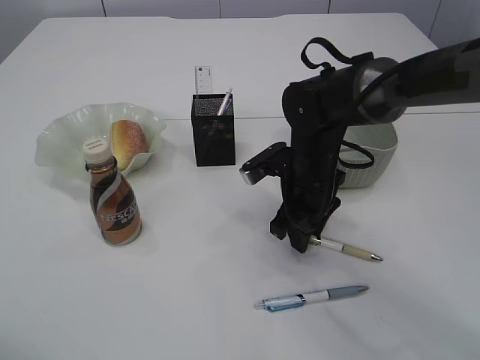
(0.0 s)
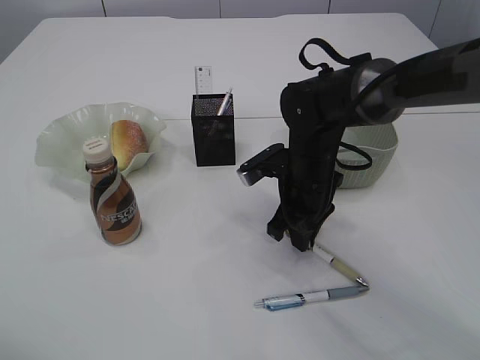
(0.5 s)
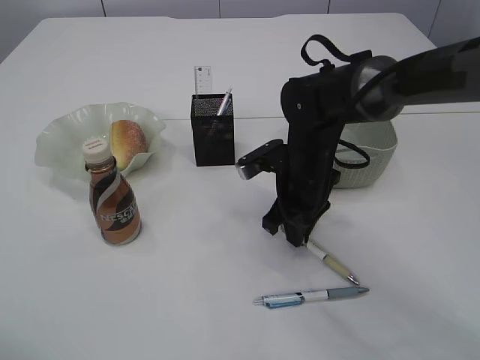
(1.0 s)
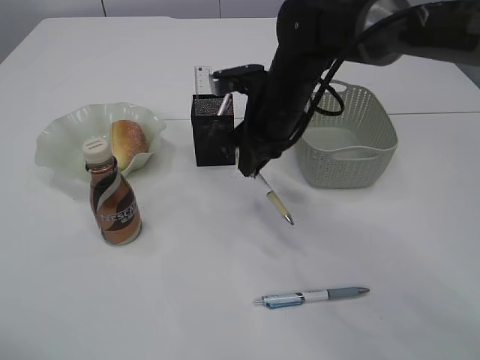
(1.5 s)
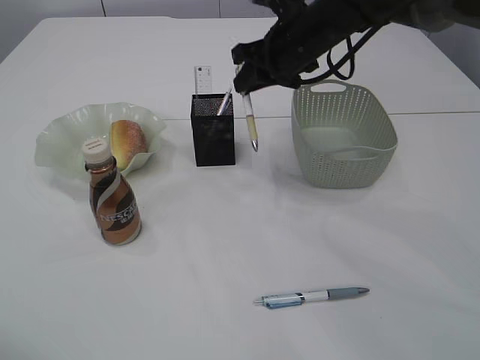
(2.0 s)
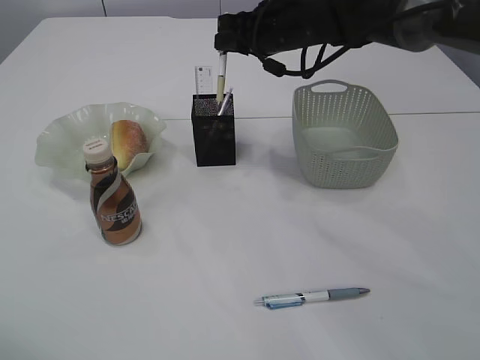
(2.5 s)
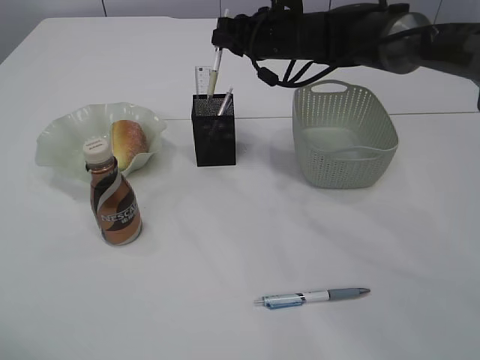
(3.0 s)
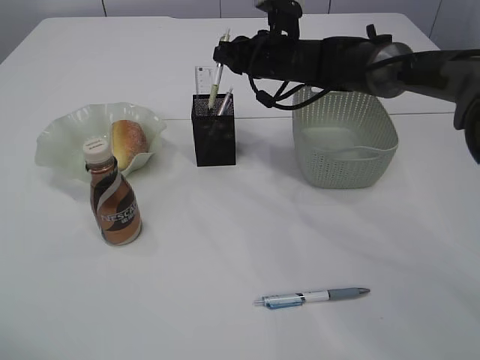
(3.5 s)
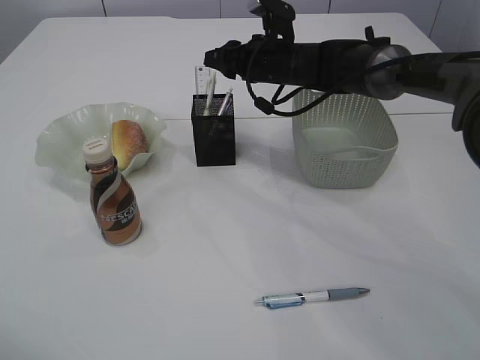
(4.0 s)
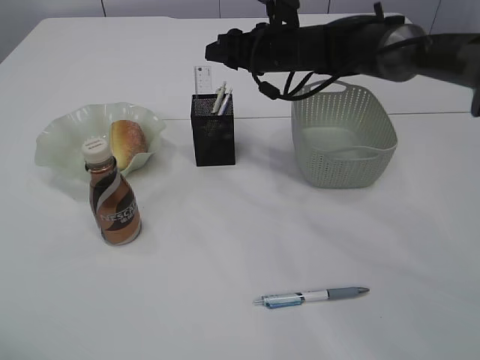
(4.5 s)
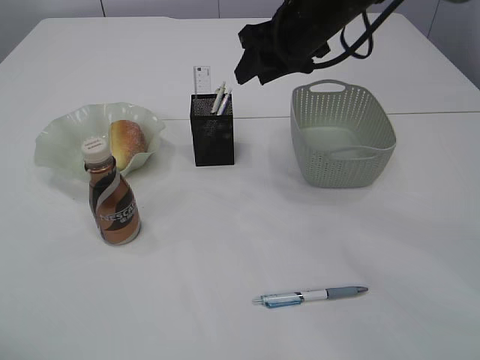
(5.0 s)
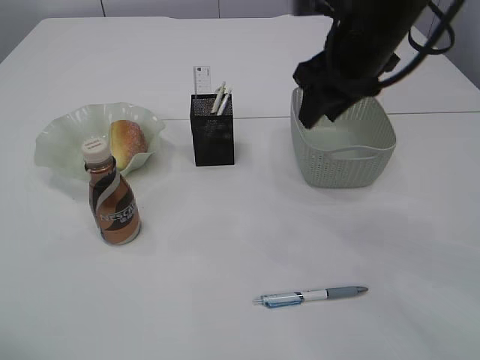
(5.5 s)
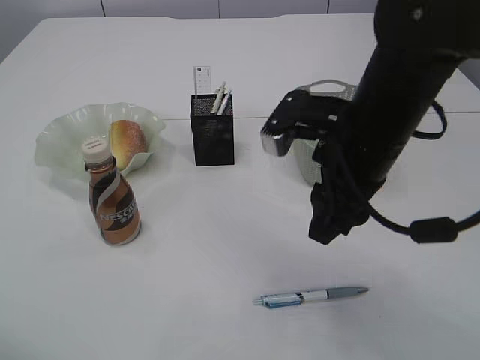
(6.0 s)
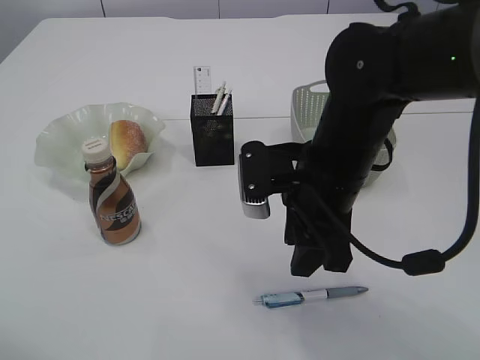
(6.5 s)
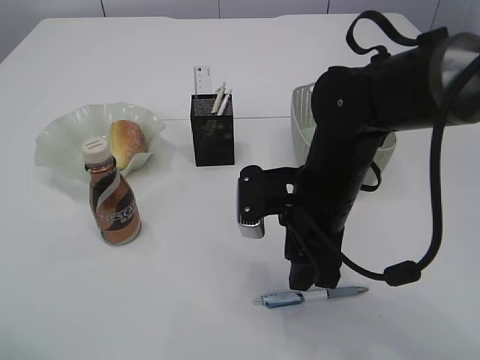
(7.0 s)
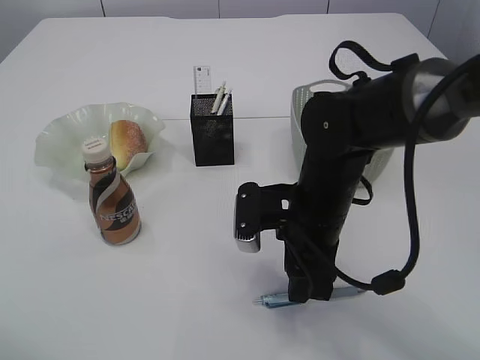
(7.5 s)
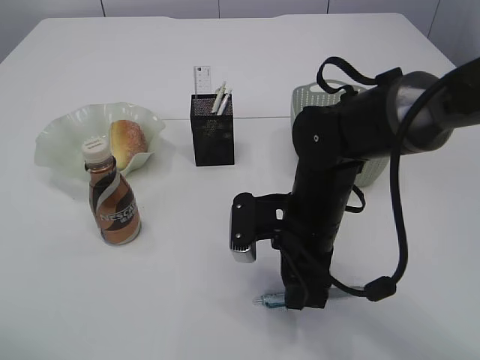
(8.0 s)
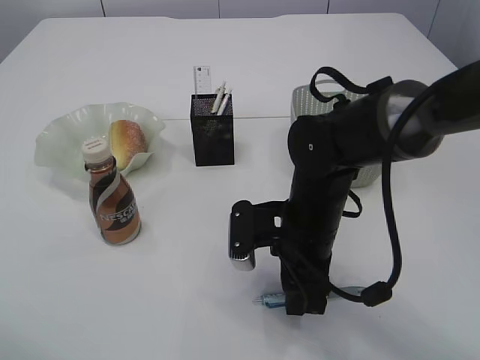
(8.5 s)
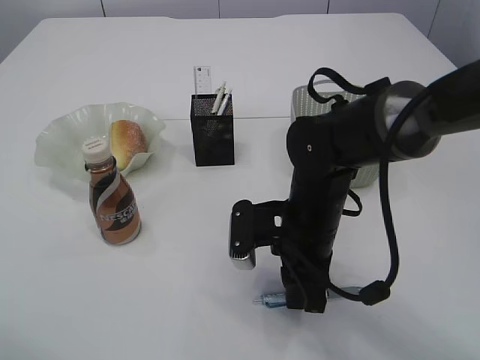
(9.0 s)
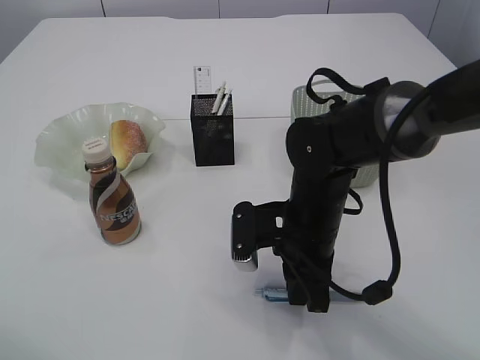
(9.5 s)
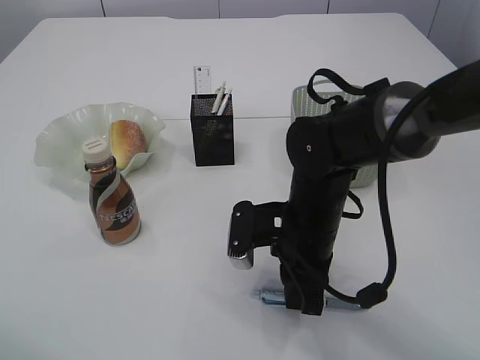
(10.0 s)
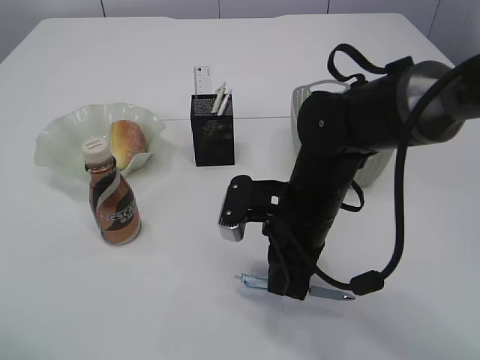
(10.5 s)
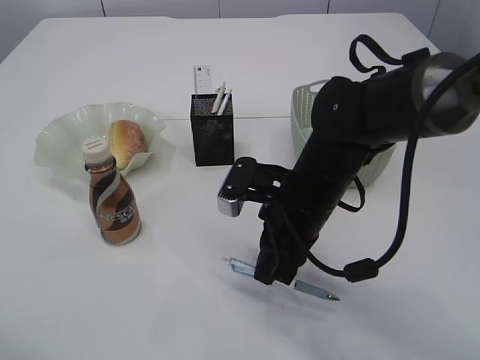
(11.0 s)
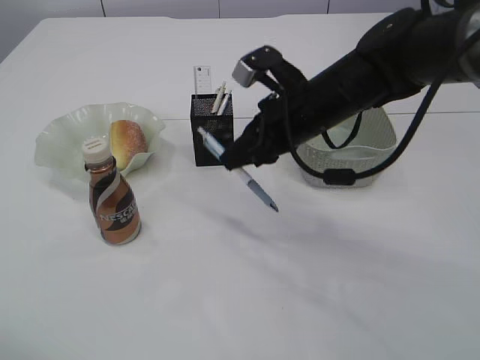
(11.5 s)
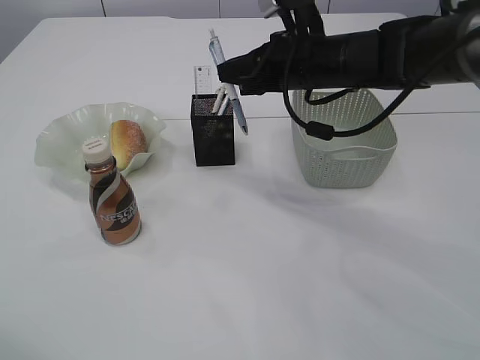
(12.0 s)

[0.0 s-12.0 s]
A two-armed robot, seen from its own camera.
Step, 1.5 to 4.0 s: Place the pen into the pen holder.
Step, 4.5 to 11.0 s: Pick up the pen with right arm.
0.0 to 2.0 s: The right gripper moves upward and forward, about 15 cm, and closes.
2.0 to 4.0 s: The right gripper goes some 10 cm downward and forward.
4.0 to 6.0 s: The right gripper goes approximately 25 cm backward.
6.0 to 8.0 s: The right gripper travels downward by approximately 10 cm.
8.0 to 10.0 s: The right gripper closes.
10.0 to 12.0 s: The right gripper is displaced forward and upward by roughly 20 cm.

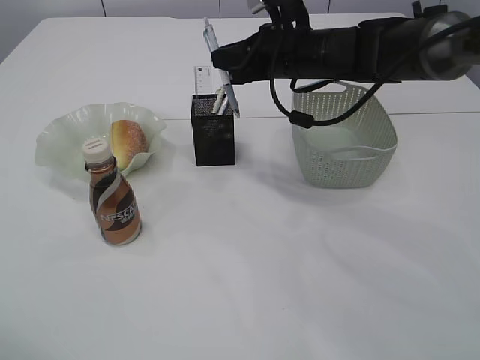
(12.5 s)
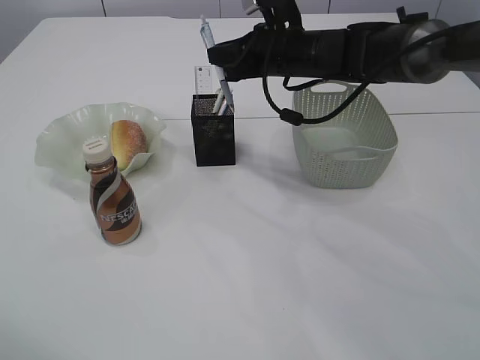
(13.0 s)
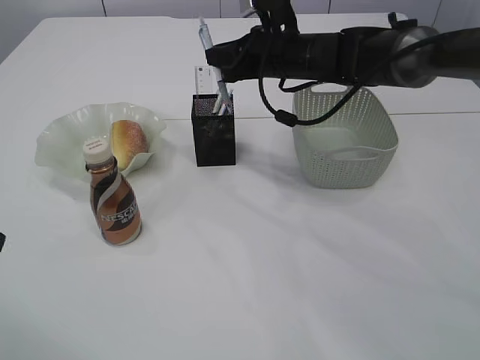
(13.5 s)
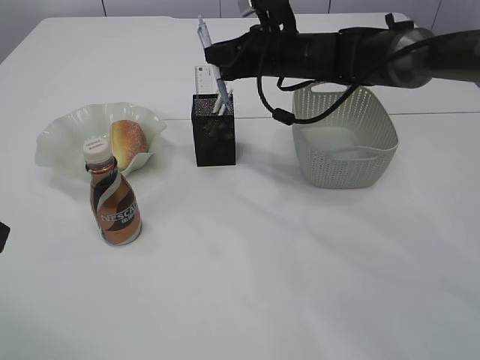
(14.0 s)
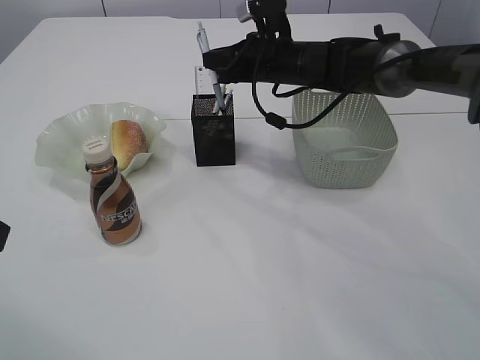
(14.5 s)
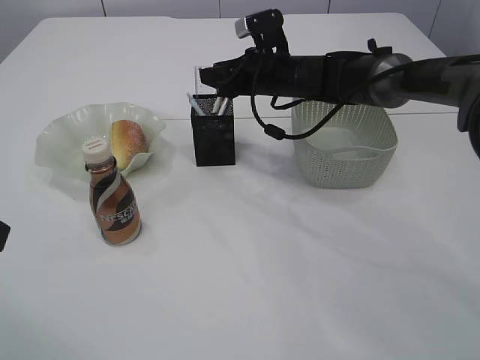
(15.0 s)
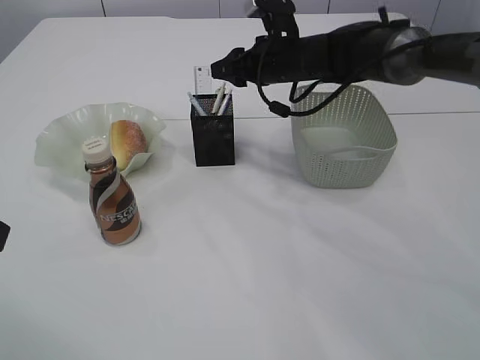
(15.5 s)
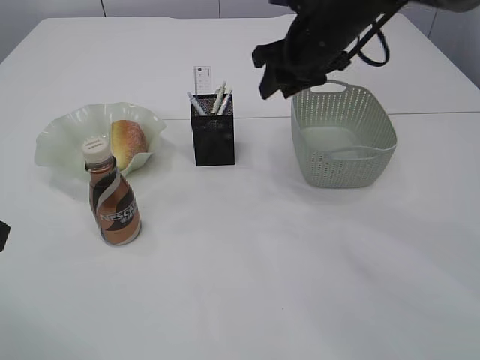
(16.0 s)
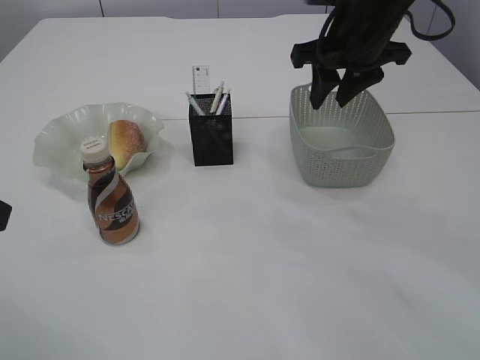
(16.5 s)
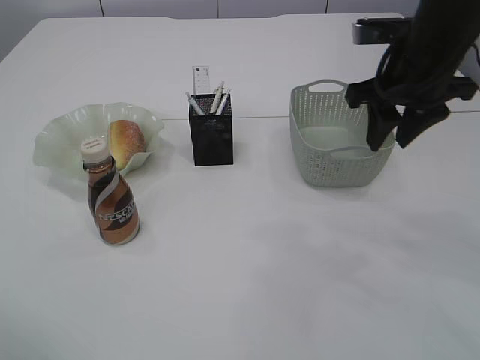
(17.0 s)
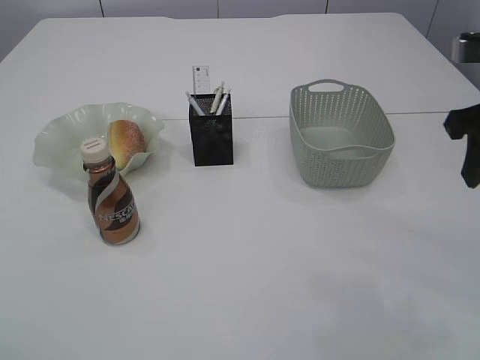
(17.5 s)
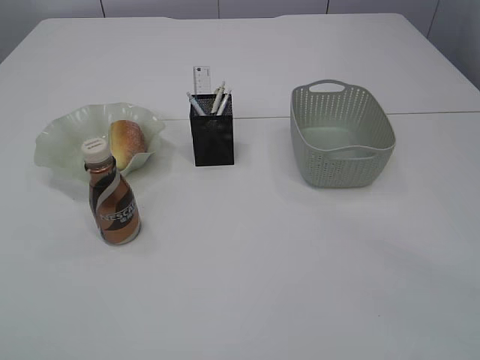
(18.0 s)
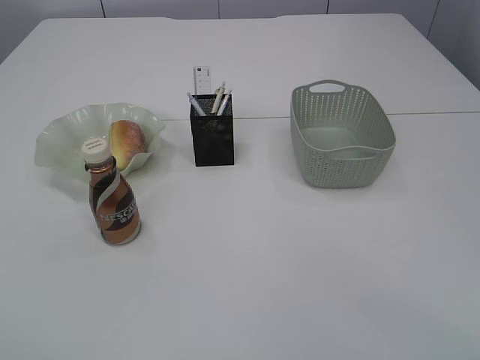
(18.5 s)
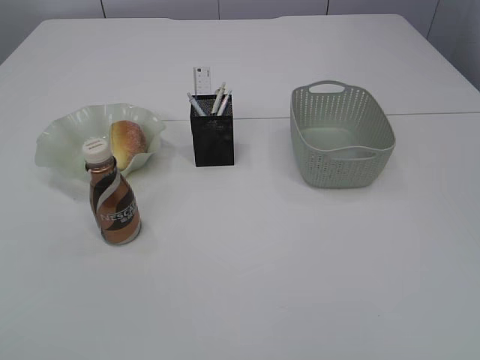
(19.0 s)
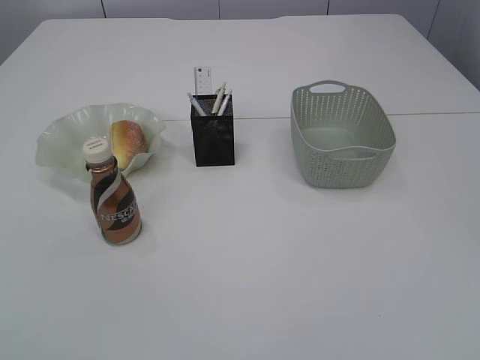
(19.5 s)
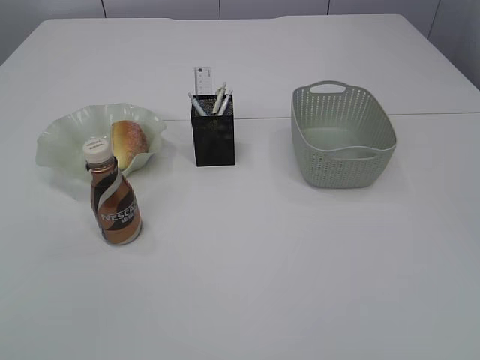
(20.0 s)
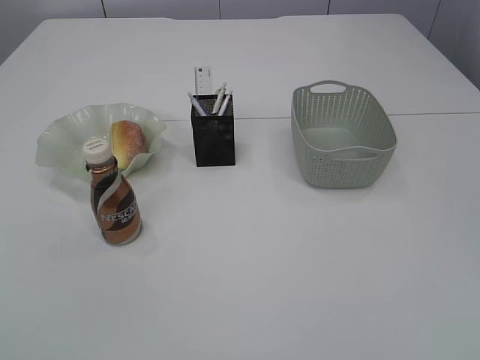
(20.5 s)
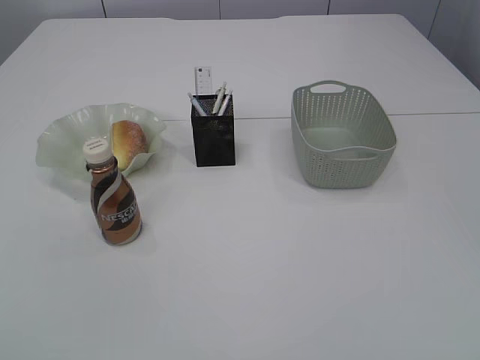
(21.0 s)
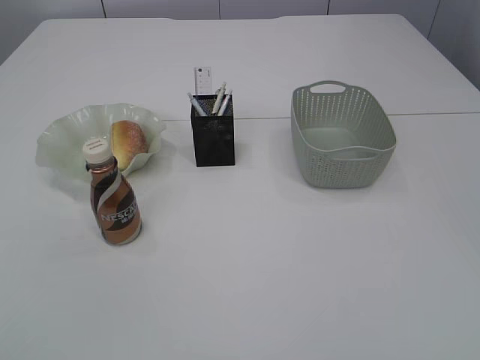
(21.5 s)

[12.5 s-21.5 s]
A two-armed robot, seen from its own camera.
Step, 12.5 to 15.5 s: Place the pen into the pen holder.
12.5 to 14.5 s: The right gripper moves some 5 cm.
14.5 to 17.0 s: The right gripper moves backward, to the right and upward, roughly 20 cm, and opens its fingers.
17.0 to 19.5 s: The right gripper is displaced backward by some 40 cm; the left gripper goes about 20 cm backward.

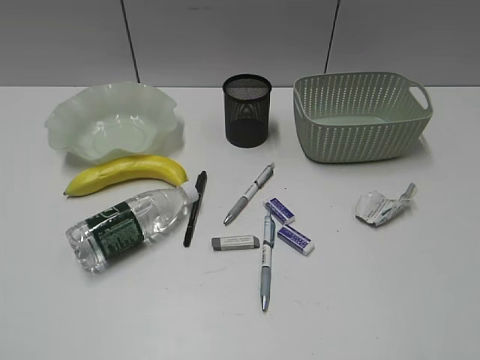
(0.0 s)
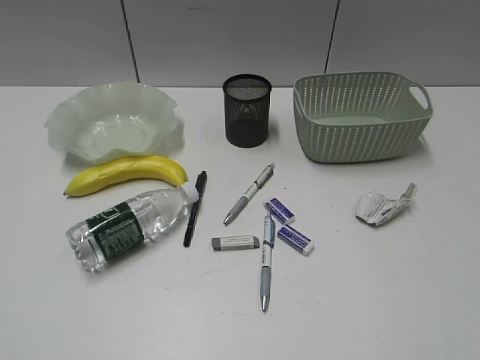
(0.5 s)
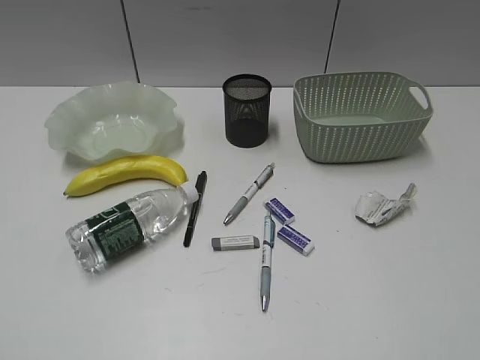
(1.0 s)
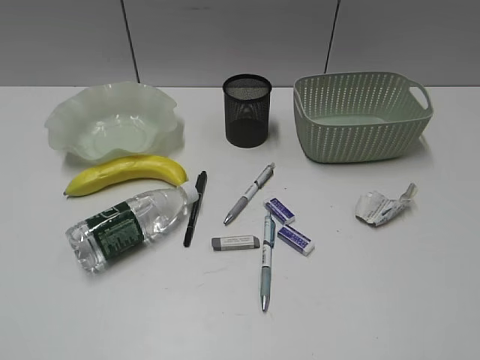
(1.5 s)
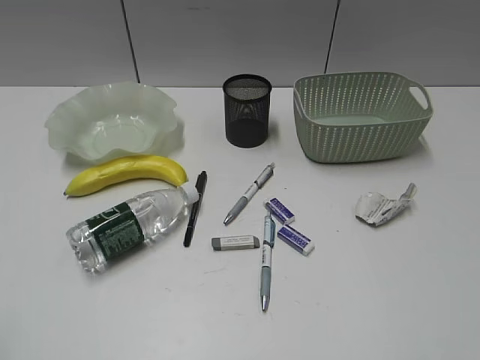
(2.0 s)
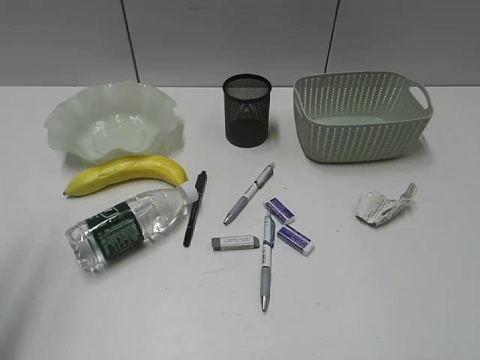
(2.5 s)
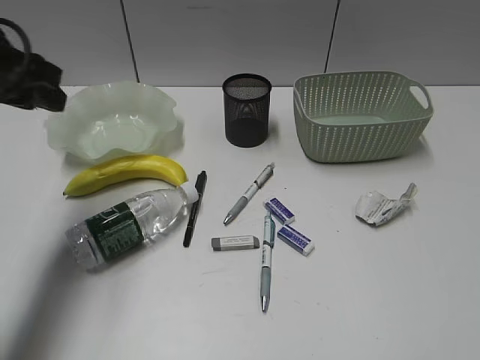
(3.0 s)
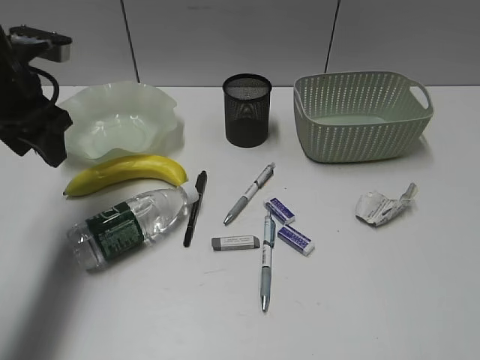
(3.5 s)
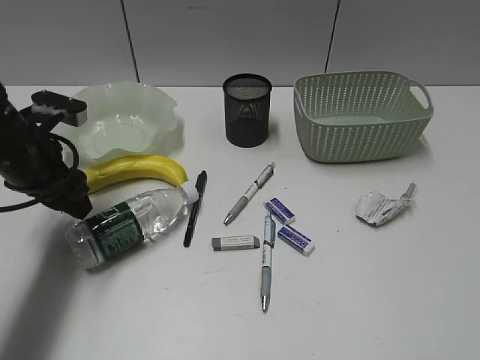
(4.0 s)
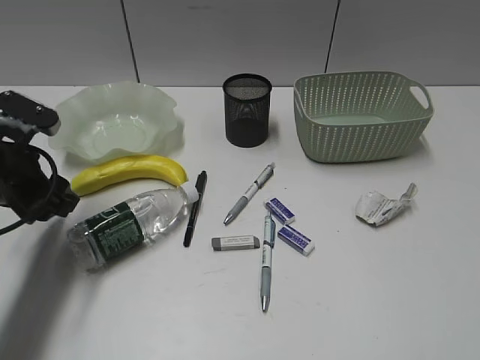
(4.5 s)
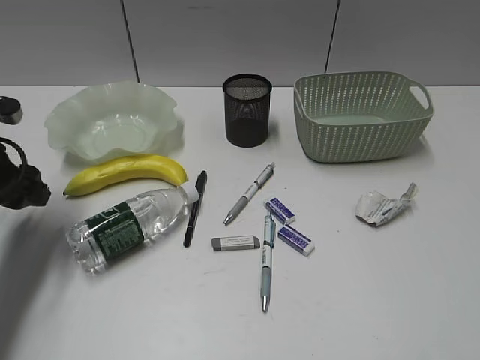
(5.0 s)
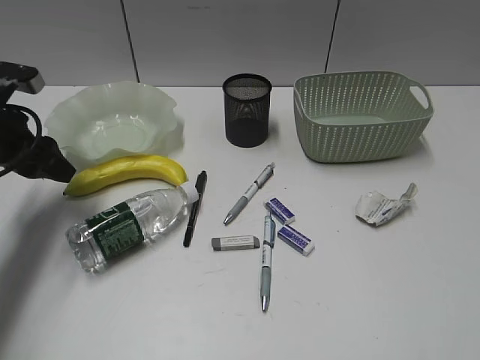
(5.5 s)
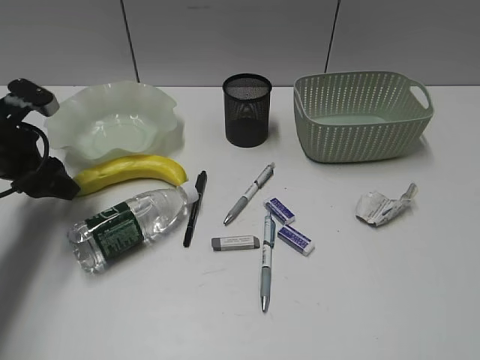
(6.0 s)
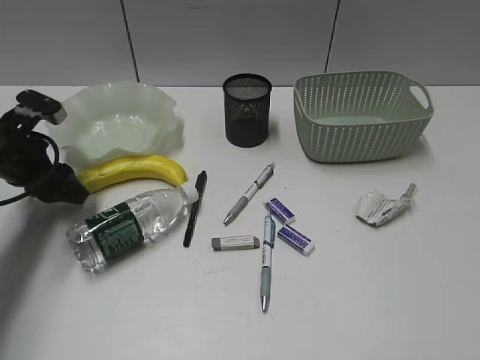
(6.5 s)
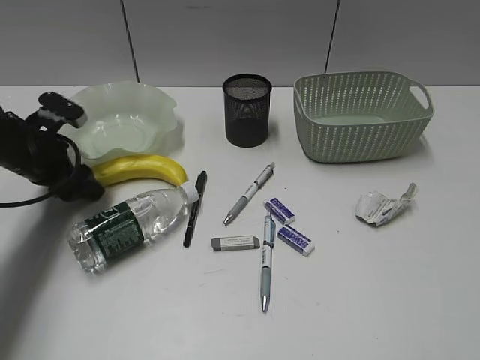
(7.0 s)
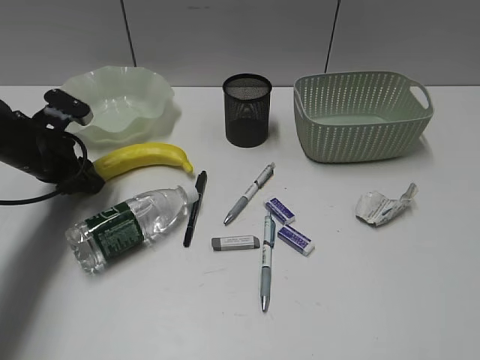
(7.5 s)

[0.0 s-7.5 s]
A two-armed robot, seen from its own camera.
Step, 2.0 to 7.0 s: Grasp the banana with left gripper.
2.0 to 4.0 s: The left gripper moves forward, some 35 cm, and opens.
4.0 to 5.5 s: The left gripper shifts by roughly 5 cm.
5.5 to 7.5 s: The left gripper heads downward, covering approximately 5 cm.
